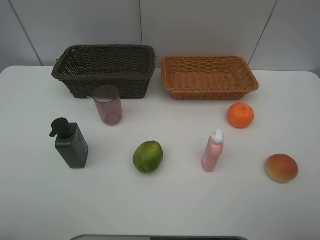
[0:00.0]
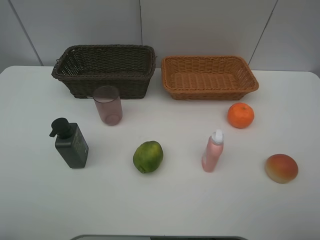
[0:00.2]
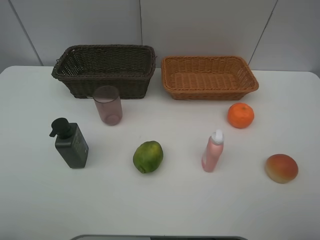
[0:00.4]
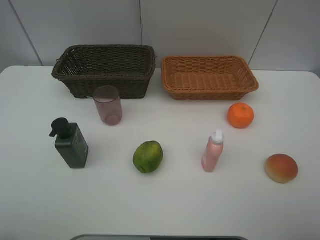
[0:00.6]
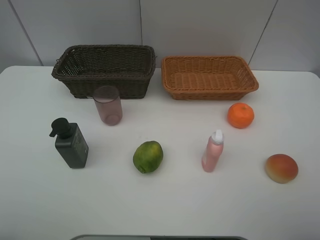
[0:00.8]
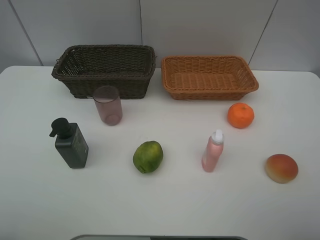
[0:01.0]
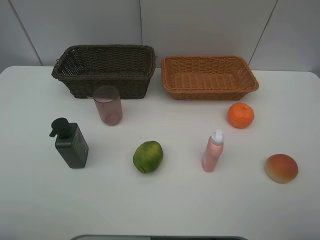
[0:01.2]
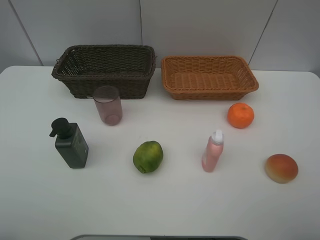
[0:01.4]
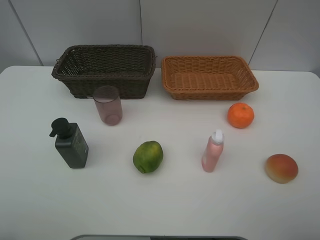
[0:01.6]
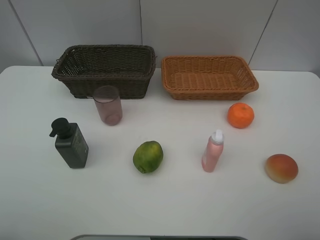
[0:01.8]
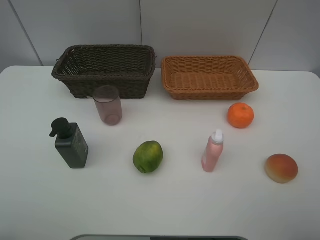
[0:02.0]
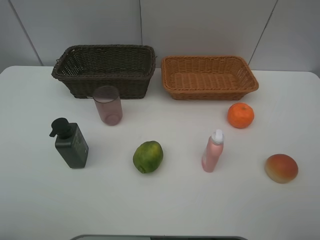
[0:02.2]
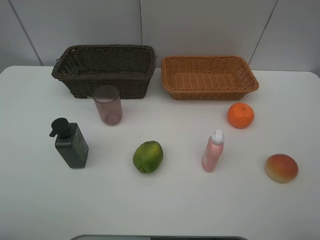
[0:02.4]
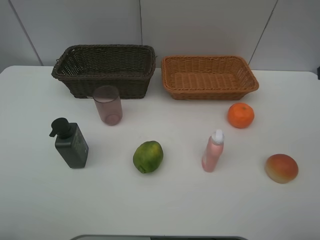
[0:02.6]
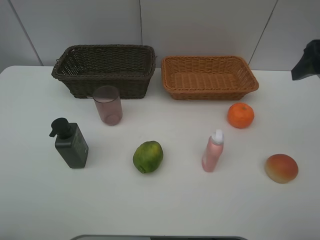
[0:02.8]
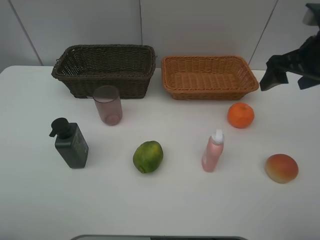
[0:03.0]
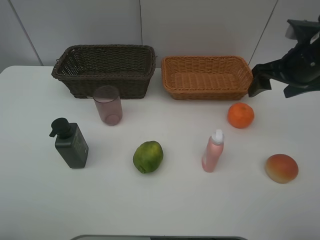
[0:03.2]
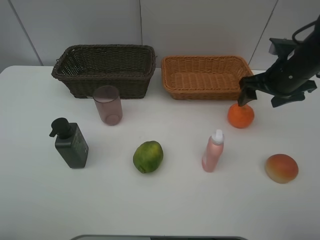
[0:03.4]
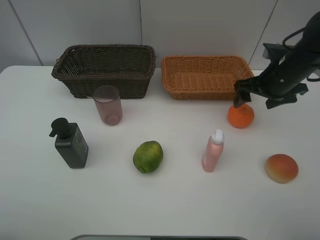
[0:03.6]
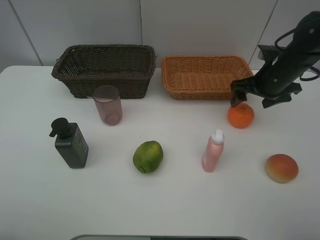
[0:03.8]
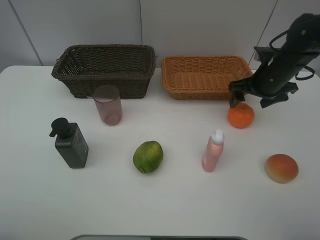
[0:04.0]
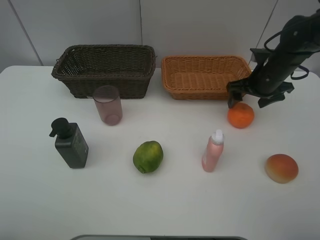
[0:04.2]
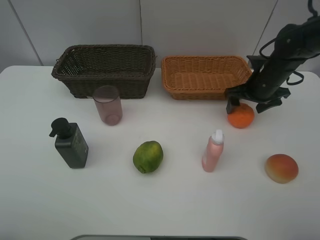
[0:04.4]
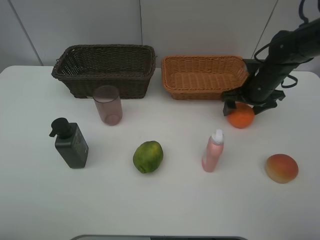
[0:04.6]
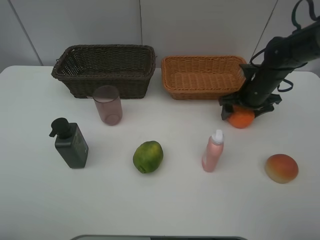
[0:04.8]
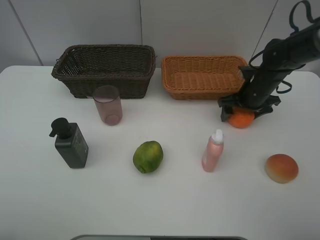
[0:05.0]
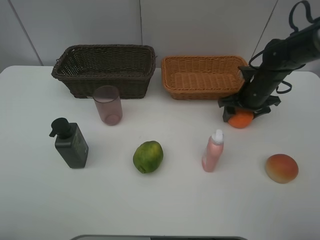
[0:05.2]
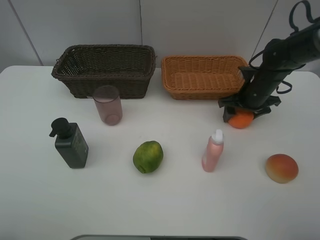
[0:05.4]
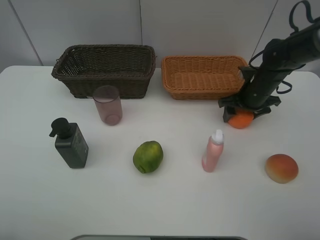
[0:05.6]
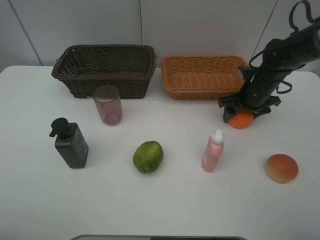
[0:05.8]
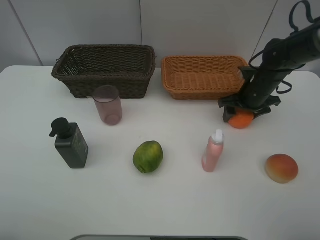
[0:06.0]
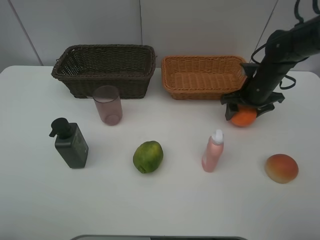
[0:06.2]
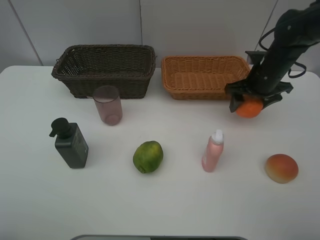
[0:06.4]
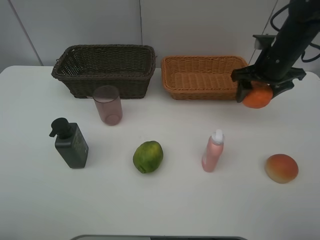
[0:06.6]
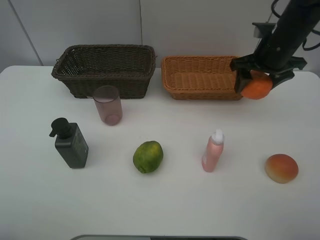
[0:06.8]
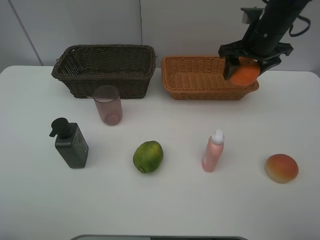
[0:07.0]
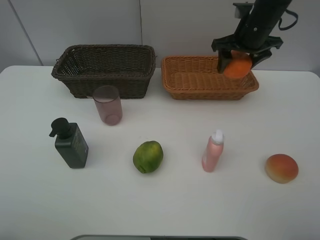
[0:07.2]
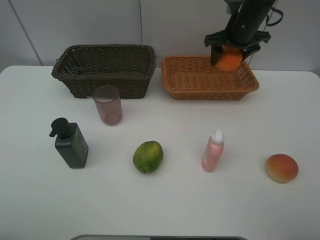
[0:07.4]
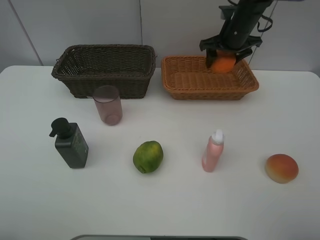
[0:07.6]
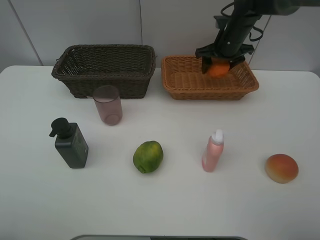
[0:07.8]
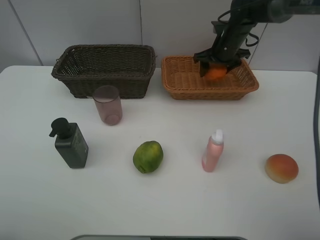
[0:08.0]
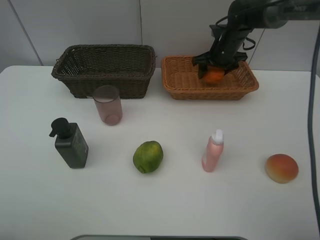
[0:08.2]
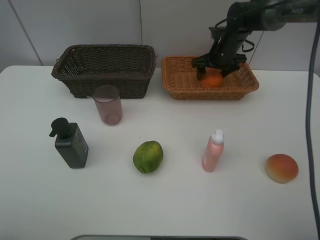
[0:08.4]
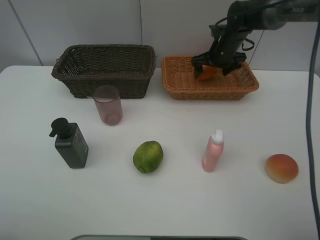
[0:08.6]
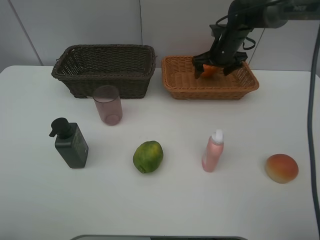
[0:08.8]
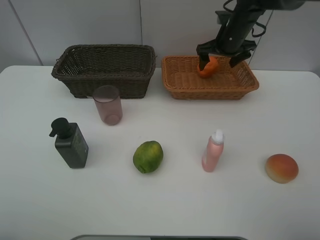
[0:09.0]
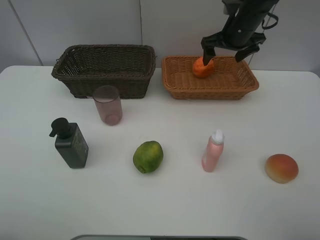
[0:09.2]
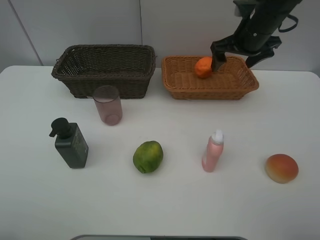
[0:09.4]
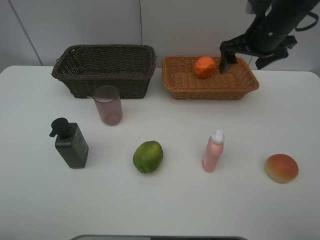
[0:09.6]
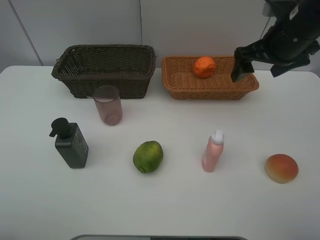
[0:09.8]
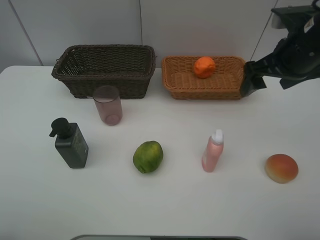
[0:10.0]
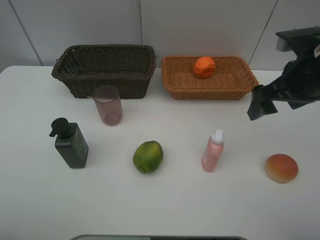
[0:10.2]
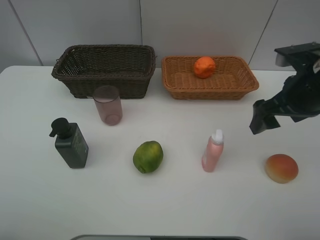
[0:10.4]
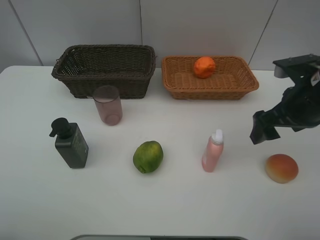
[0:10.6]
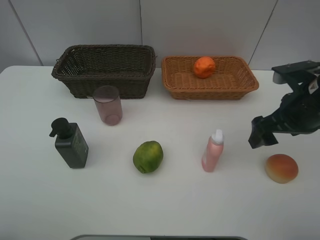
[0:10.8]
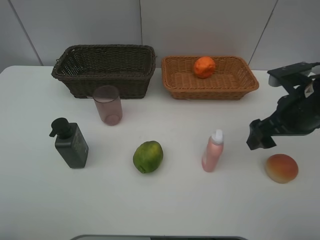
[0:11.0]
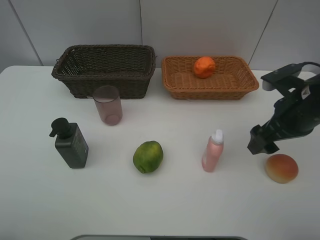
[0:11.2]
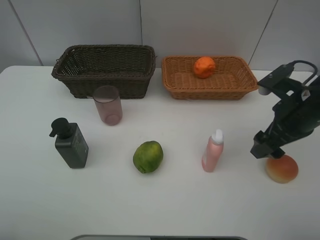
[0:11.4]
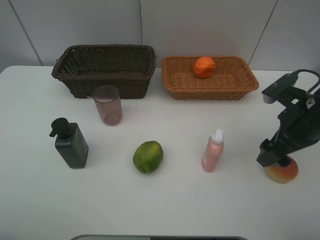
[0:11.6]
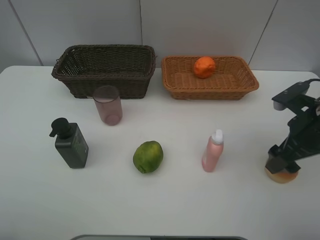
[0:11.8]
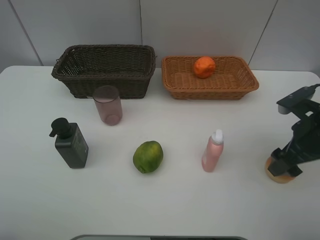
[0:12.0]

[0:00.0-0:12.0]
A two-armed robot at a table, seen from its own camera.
Task of the whole recording: place multiple objects separately in different baskets.
0:00.0 to 0:01.6: The two grippers keep their place.
0:01.6 to 0:03.0: The right gripper travels forward by approximately 25 cm.
0:03.0 to 0:04.4: The right gripper travels downward and forward by approximately 15 cm.
0:04.4 to 0:06.0: The grippers move only a little.
0:06.0 to 0:07.6: The right gripper is displaced upward, forward and to the left by roughly 15 cm.
0:07.6 to 0:09.0: The right gripper opens its fingers.
0:09.0 to 0:10.4: The right gripper shifts some 25 cm backward.
0:10.4 to 0:12.0: The right gripper goes approximately 5 cm downward.

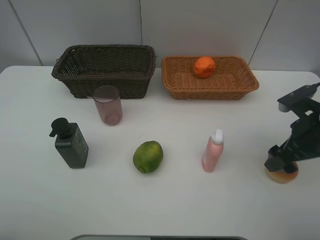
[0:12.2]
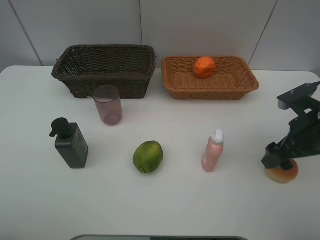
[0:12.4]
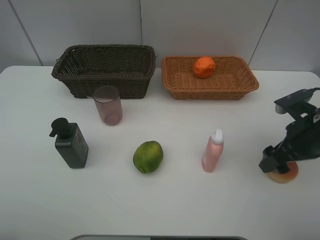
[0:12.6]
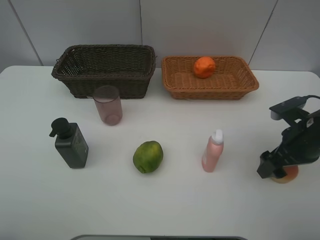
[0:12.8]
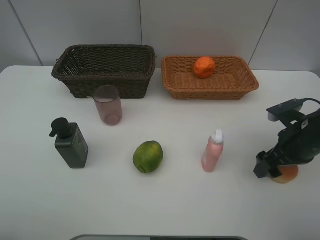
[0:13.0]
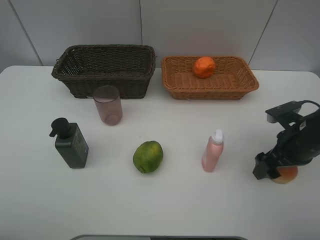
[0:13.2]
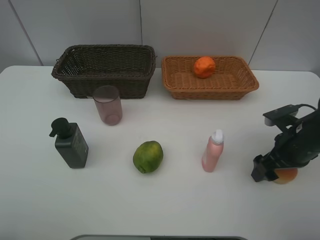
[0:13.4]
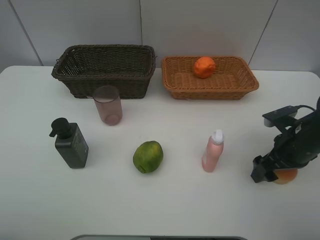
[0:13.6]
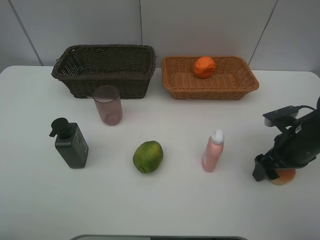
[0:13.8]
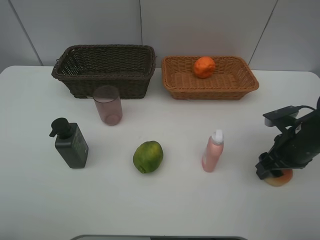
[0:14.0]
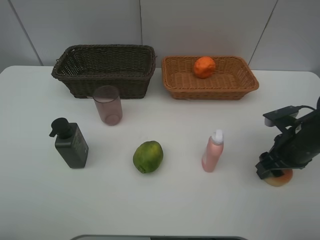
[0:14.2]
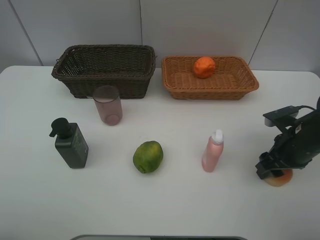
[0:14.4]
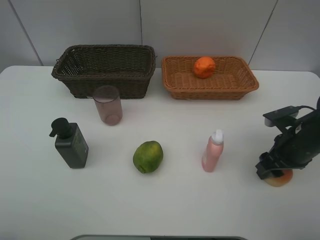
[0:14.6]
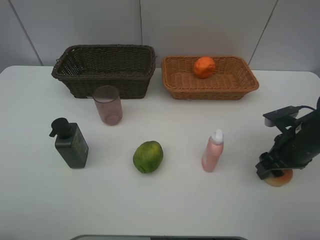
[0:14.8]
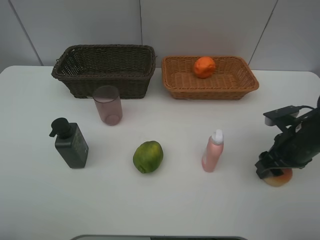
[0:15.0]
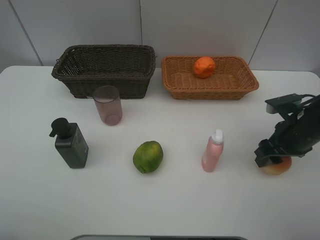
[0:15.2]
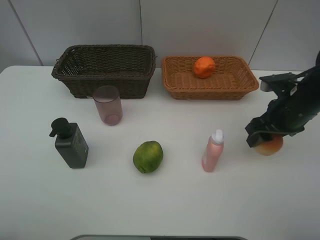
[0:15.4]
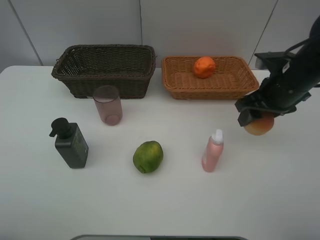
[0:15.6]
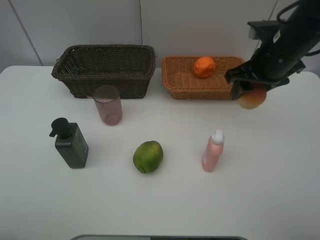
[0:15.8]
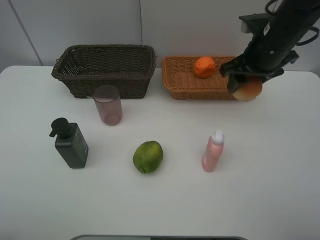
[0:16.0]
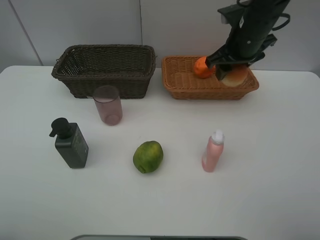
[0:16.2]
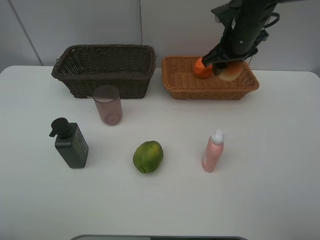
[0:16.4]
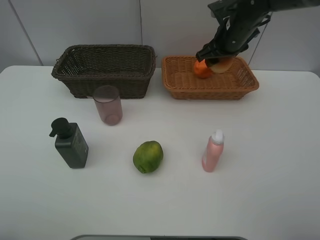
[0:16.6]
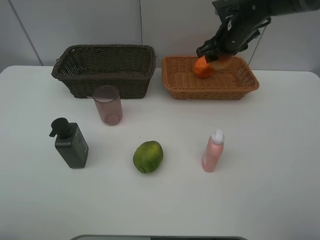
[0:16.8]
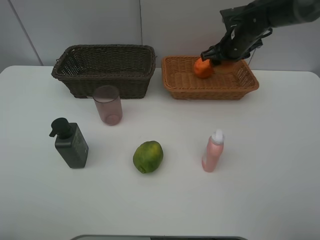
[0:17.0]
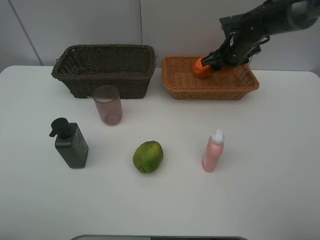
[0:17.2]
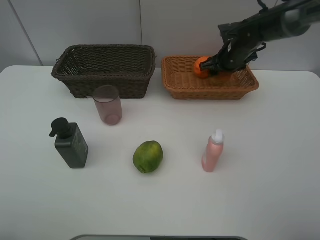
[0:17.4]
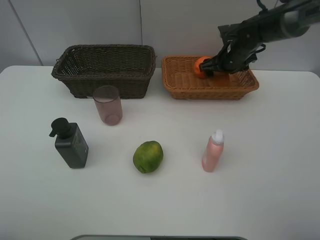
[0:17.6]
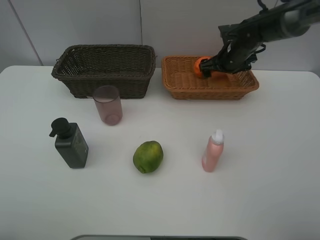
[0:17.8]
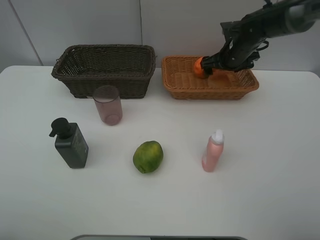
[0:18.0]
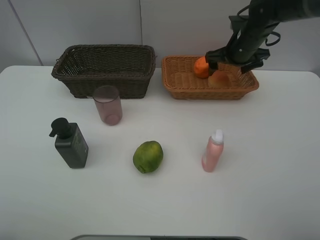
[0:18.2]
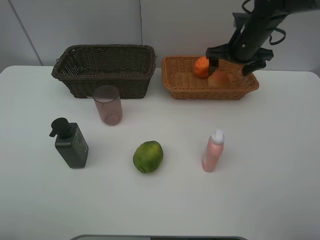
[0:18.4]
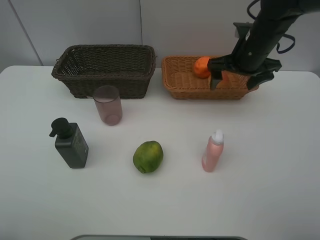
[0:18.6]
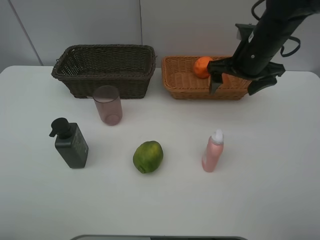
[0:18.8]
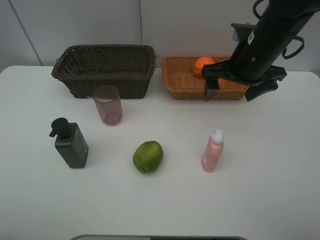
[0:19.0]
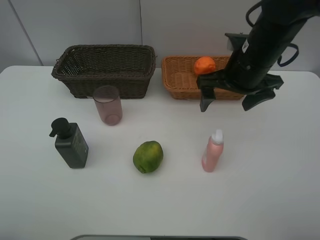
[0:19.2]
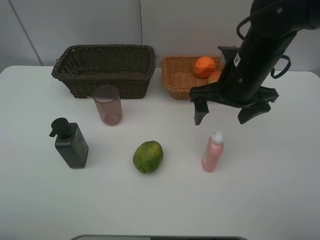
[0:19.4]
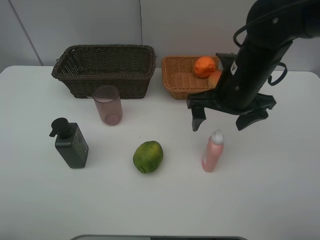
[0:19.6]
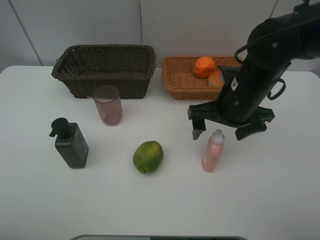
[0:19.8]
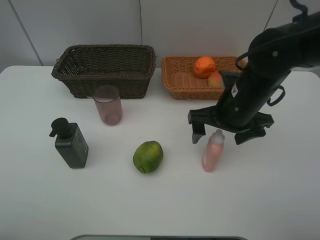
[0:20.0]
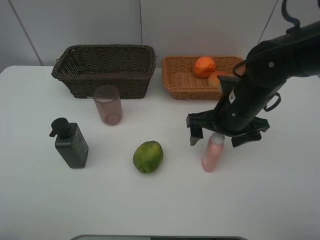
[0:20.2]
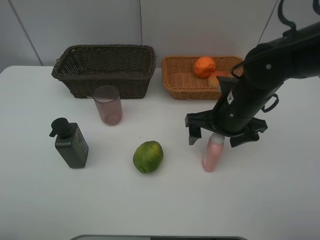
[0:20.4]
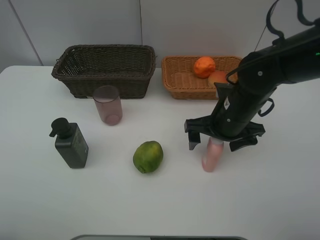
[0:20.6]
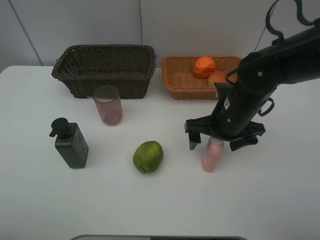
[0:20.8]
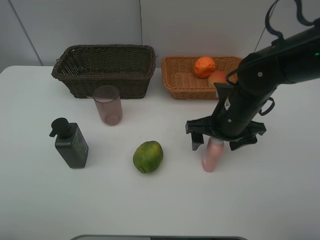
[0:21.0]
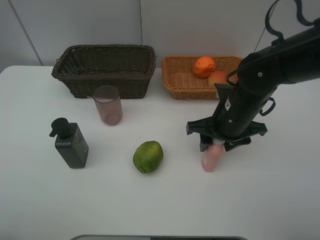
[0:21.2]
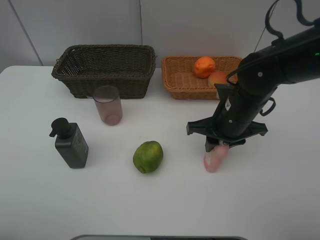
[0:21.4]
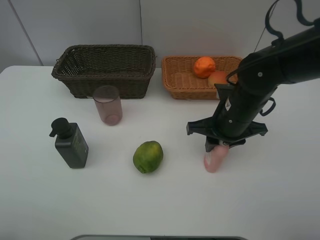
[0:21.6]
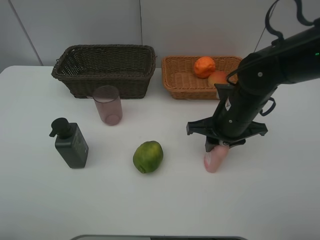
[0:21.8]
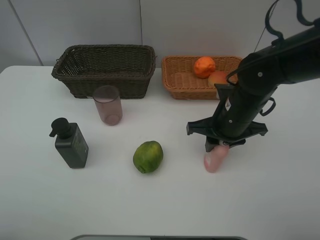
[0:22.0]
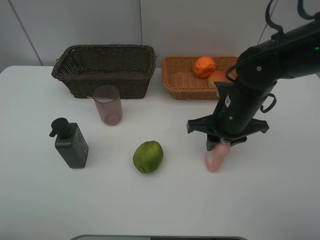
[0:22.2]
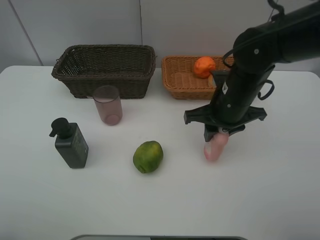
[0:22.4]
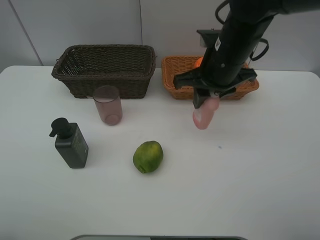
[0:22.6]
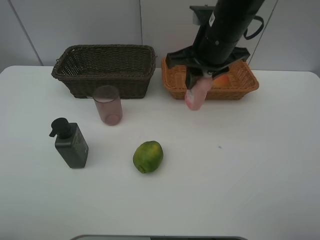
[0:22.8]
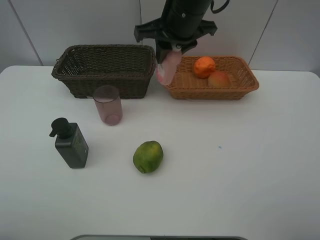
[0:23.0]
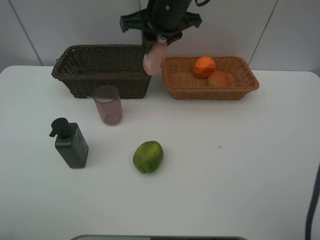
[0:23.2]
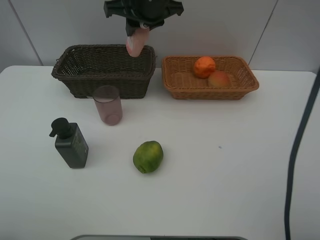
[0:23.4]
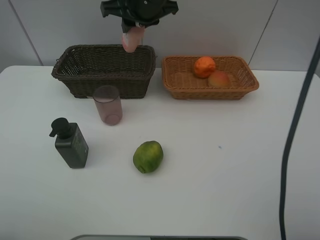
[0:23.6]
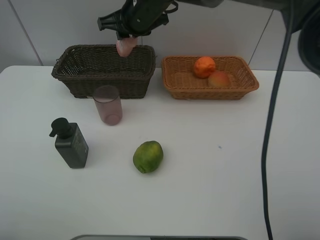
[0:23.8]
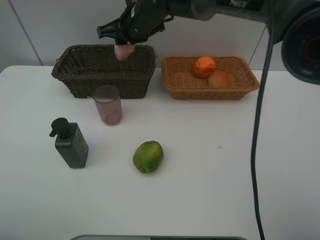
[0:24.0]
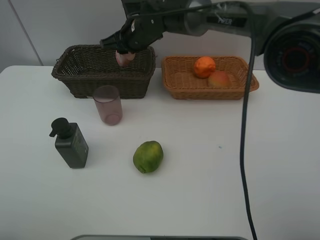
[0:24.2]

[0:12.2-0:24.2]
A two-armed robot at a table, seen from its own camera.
Task of the whole recording: place multiple objects separately in different baskets.
0:12.2 to 0:13.8: The right gripper travels downward by roughly 5 cm.
0:13.8 to 0:15.2: The grippers move only a little.
0:15.2 to 0:16.6: The right gripper travels forward, to the left and upward by approximately 25 cm.
0:16.6 to 0:18.2: The right gripper opens.
0:18.2 to 0:19.8: The right gripper moves backward, about 20 cm.
0:19.8 to 0:21.2: The right gripper closes up.
0:21.2 to 0:22.6: The right gripper goes approximately 10 cm upward.
0:22.6 to 0:24.2: The right gripper is displaced to the left and forward by approximately 20 cm.
